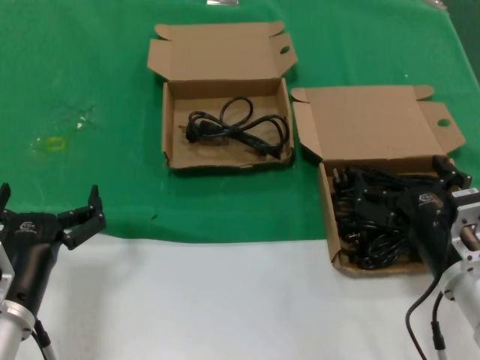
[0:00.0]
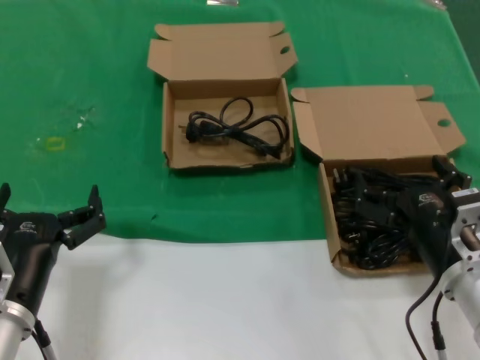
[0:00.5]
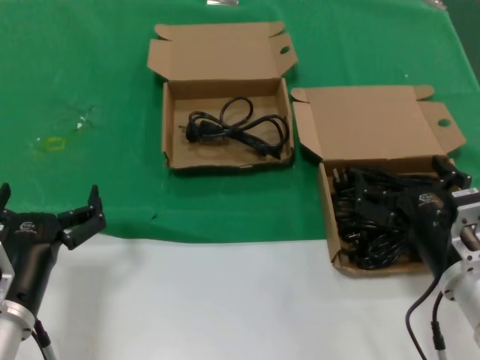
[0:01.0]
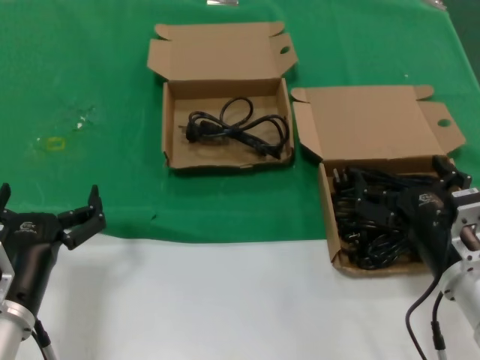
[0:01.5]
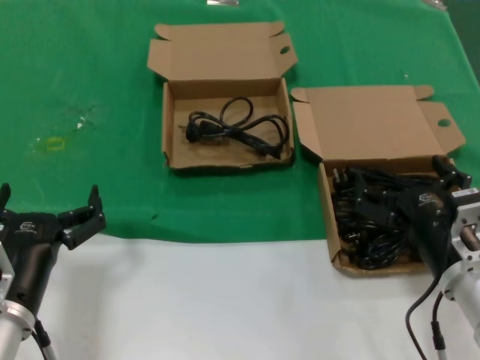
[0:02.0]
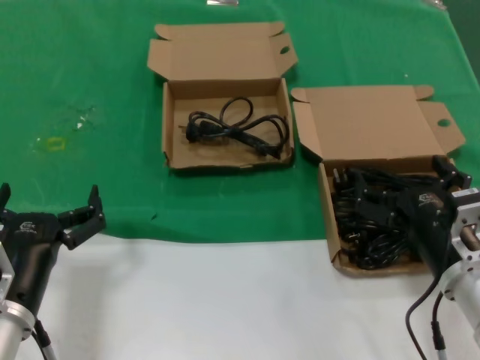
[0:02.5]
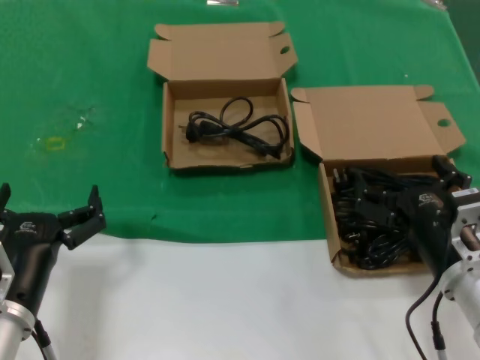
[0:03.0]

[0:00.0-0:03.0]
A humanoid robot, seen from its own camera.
Task of the whole recording: take the parts from the box containing them and put them into an empty box.
0:00.0 to 0:03.0: Neither hand changes place.
